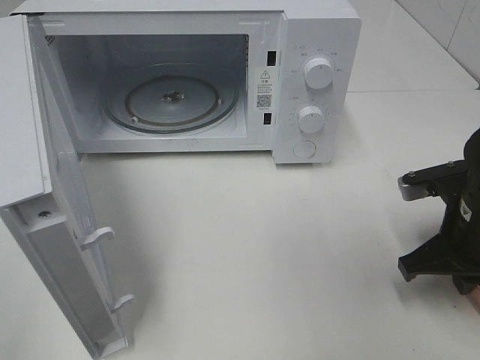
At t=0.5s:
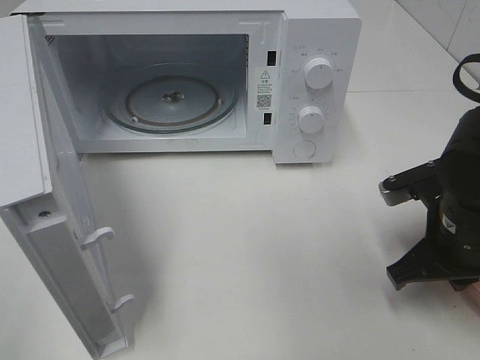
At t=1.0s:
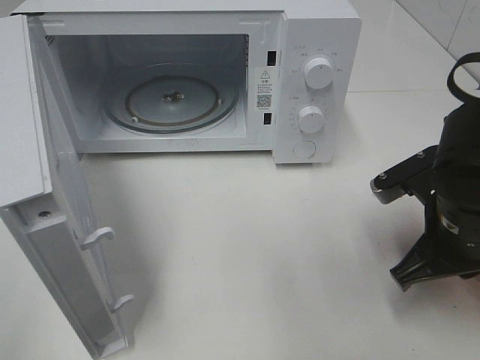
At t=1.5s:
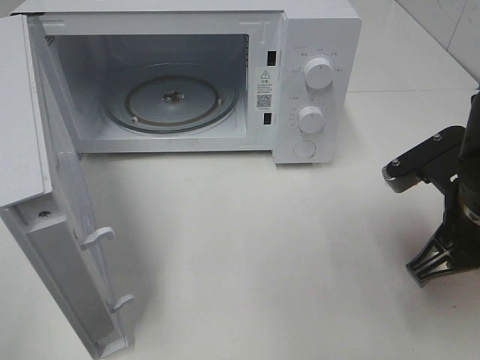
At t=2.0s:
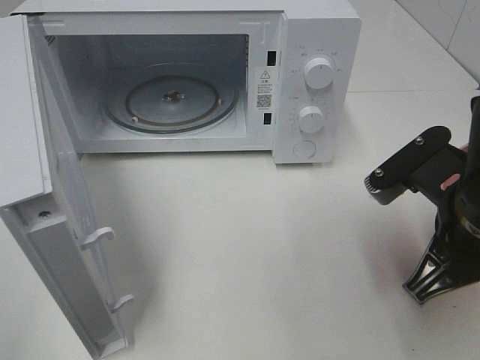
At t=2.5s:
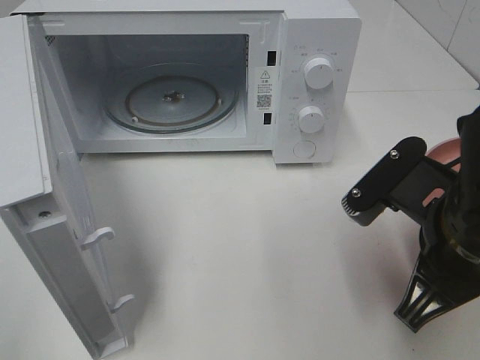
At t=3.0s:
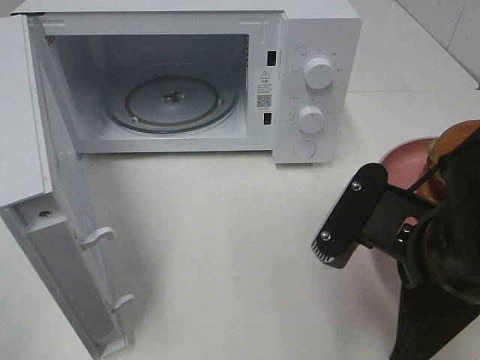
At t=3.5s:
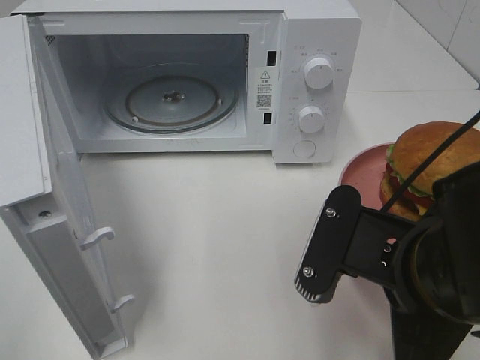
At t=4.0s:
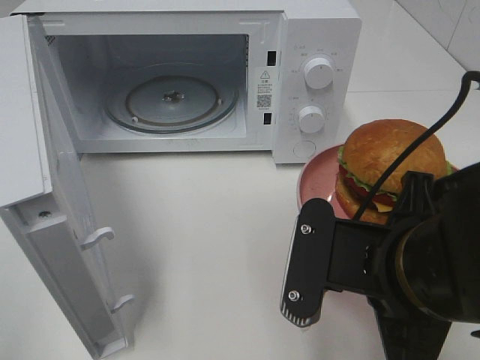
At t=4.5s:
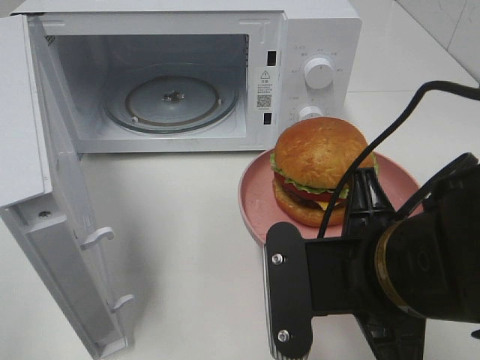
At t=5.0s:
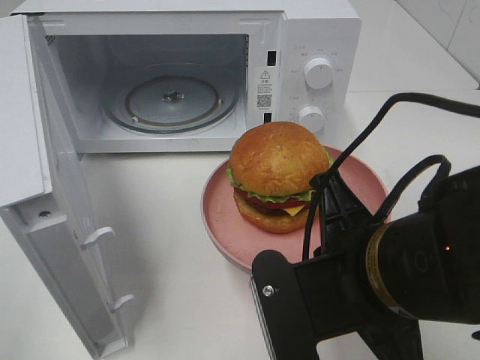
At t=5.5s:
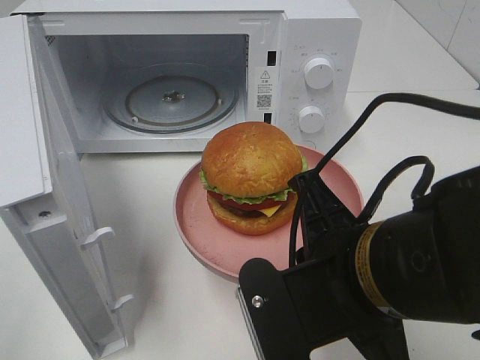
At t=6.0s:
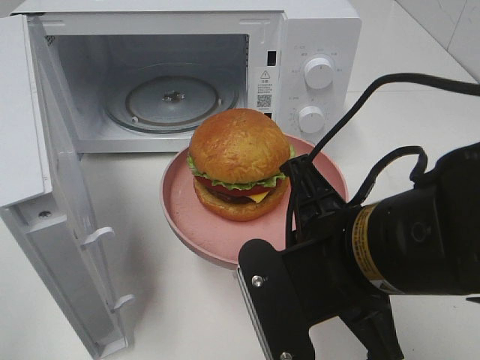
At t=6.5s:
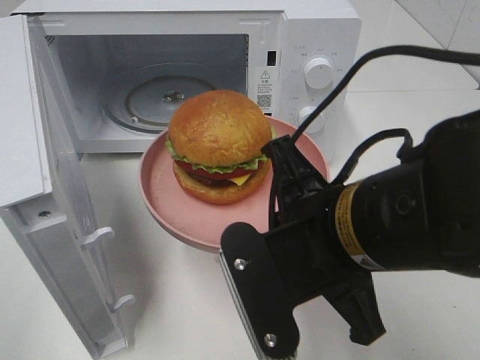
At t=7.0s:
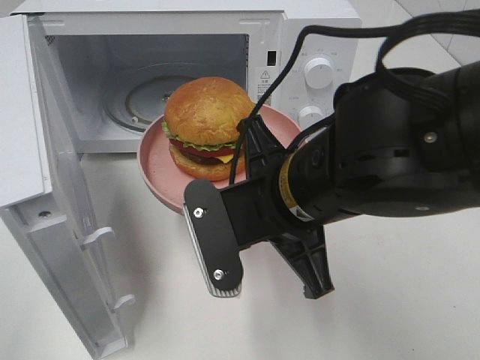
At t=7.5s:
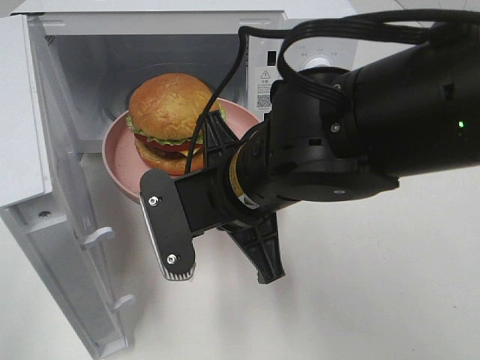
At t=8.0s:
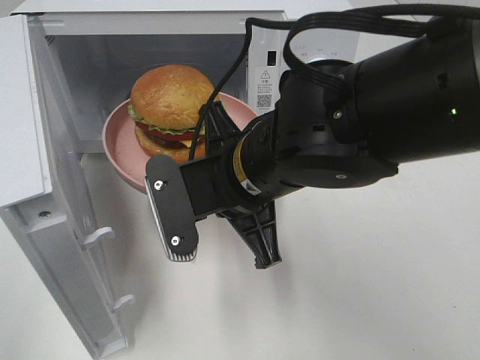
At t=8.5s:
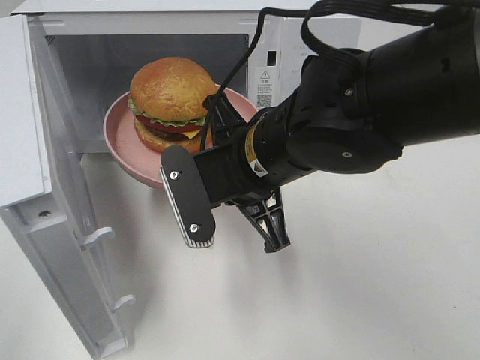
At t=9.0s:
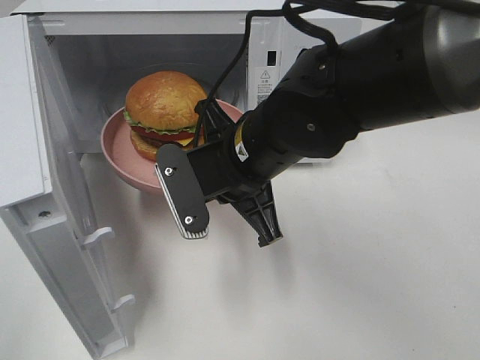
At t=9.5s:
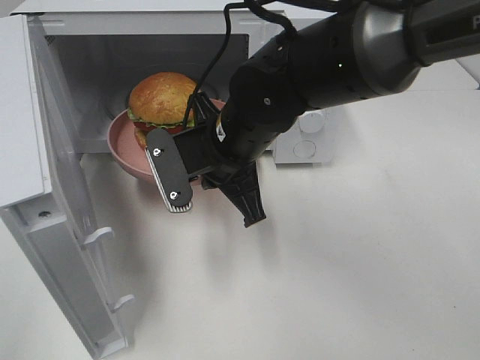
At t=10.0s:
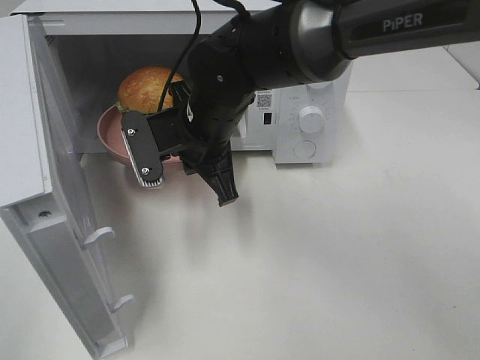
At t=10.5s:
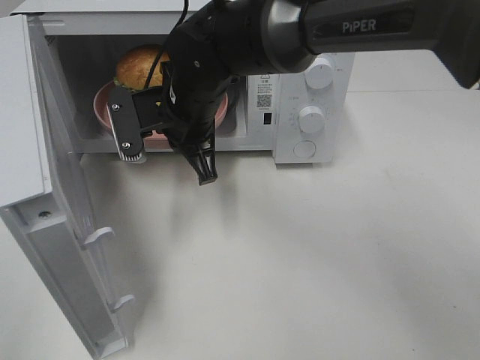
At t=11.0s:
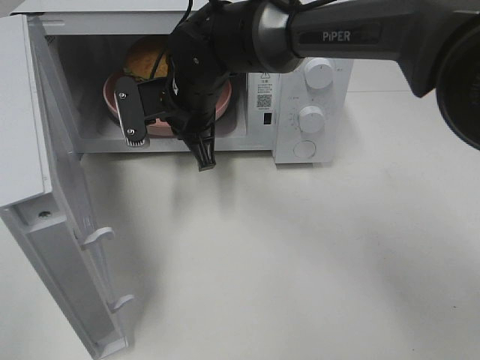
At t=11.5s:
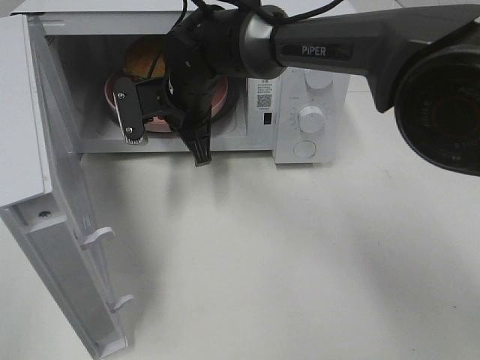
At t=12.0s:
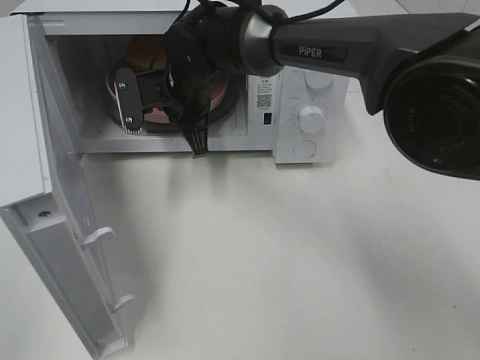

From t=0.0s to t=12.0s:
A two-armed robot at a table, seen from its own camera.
Task of the whole recording: Heat the burger.
From t=0.0s to t=2.0s: The right gripper shifts approximately 10 cm upward, to the left and backward.
From t=2.0s to t=4.0s: The right gripper travels to the left and backward by about 10 cm.
From t=6.0s to t=8.0s: The right gripper moves forward and to the left, approximately 10 cm.
From t=8.0s to t=10.0s: The right gripper shifts about 10 cm forward.
From t=10.0s to t=12.0s: The right gripper goes some 10 cm forward.

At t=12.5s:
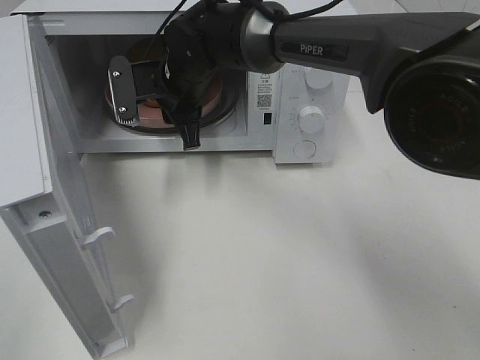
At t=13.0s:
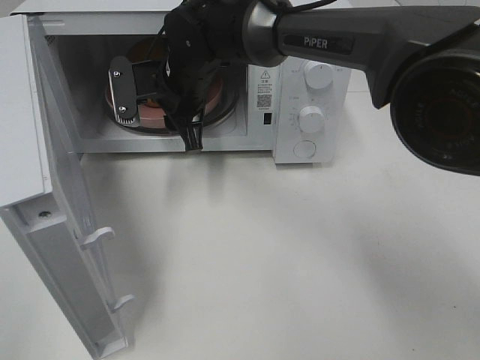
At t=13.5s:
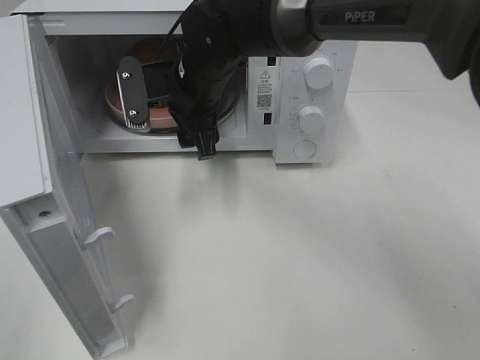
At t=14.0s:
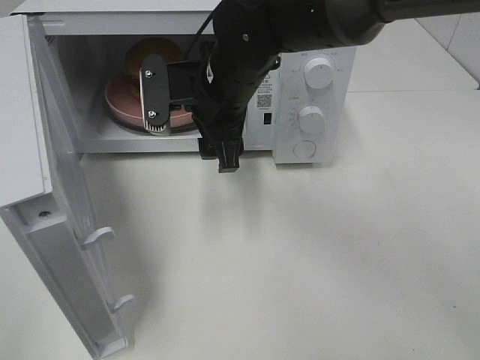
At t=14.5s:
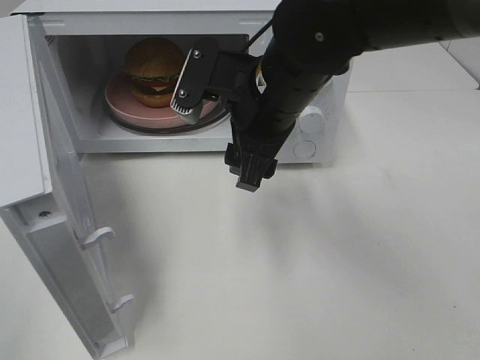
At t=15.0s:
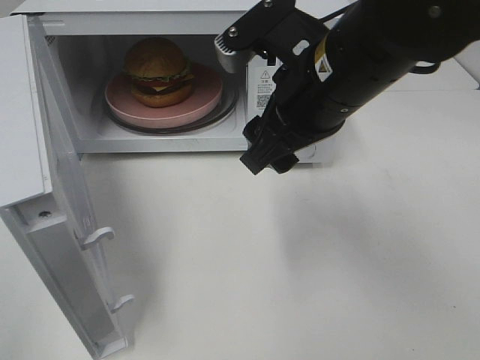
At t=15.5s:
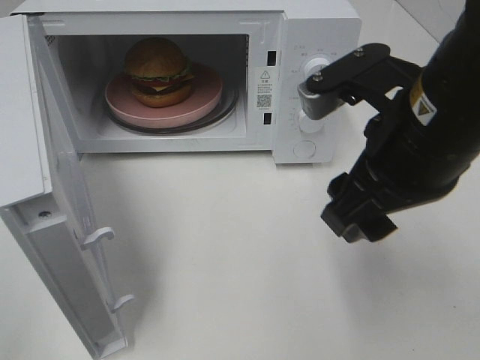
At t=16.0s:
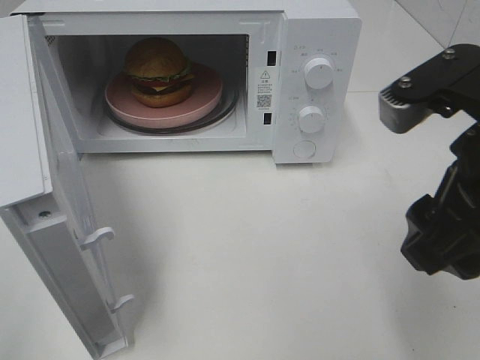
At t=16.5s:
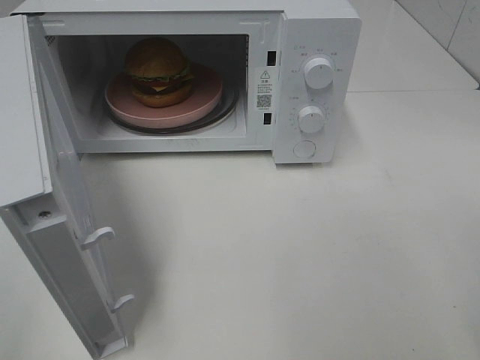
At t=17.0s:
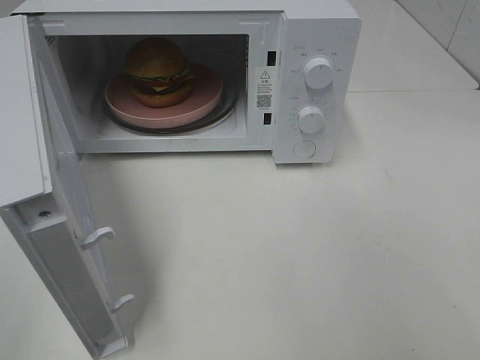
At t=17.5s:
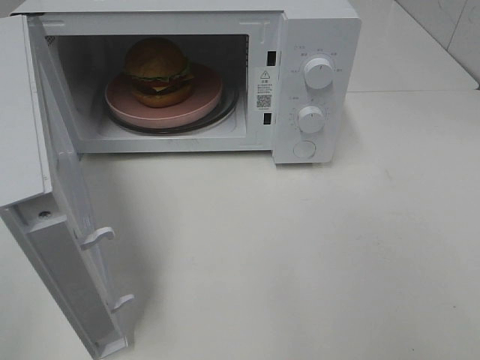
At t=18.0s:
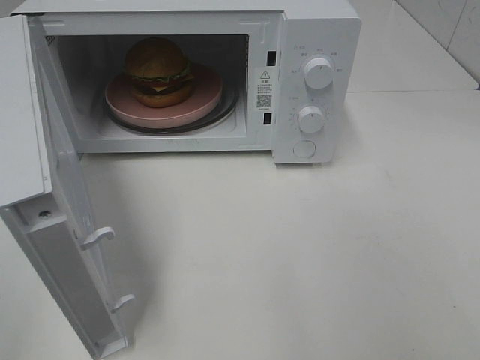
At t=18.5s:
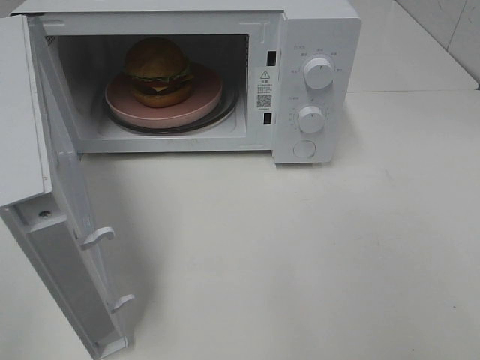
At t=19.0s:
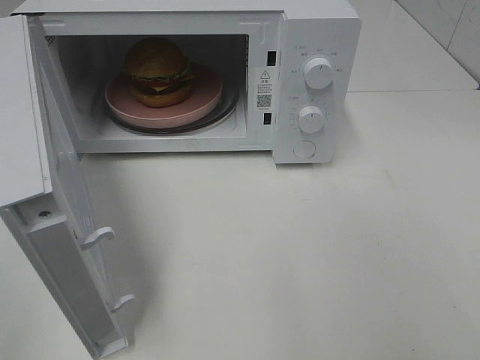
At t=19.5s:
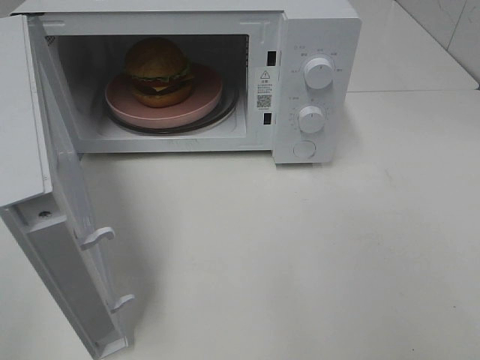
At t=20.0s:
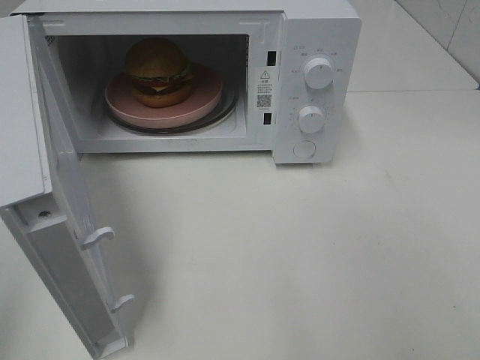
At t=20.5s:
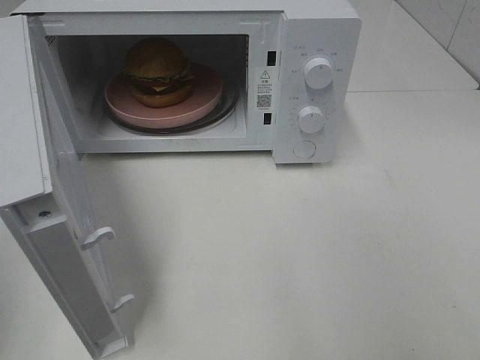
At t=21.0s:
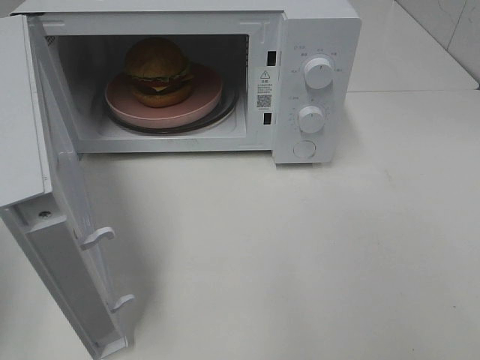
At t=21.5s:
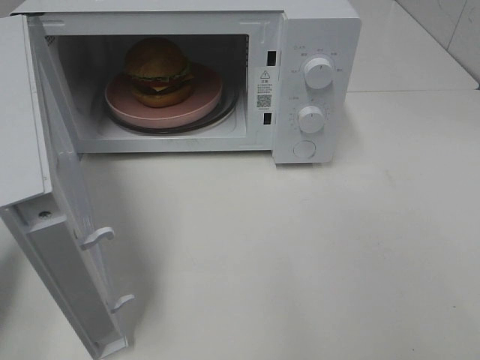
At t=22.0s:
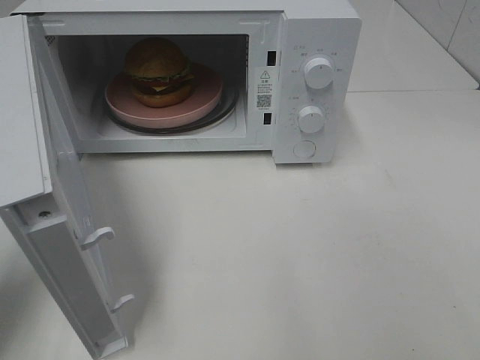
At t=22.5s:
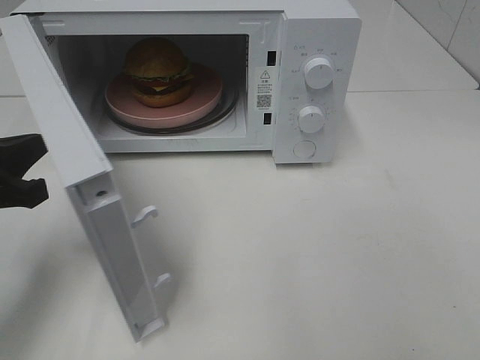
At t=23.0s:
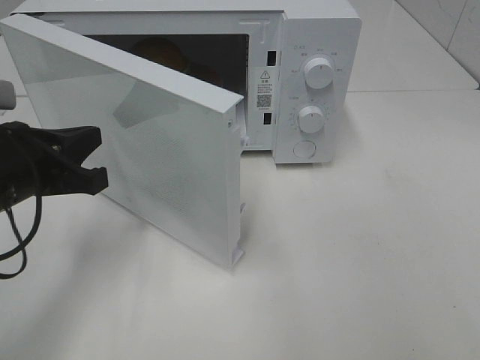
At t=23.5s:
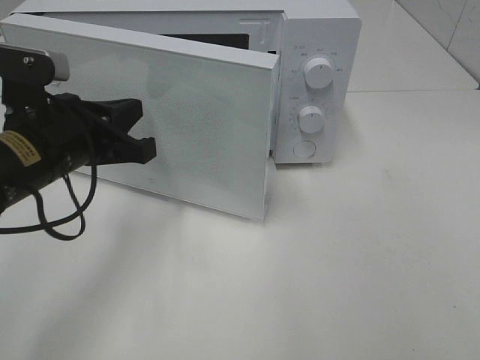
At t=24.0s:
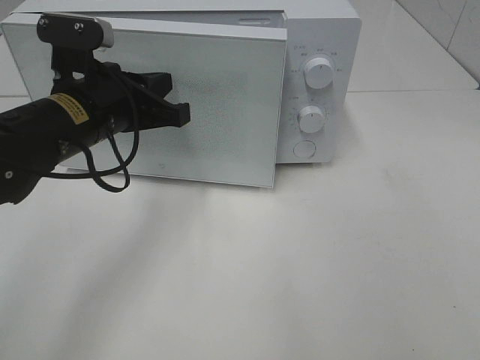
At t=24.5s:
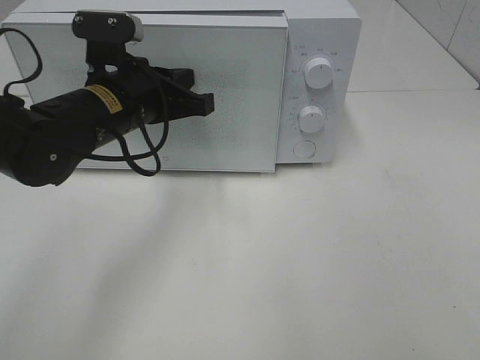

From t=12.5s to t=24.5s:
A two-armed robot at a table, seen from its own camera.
Task of the whole recording: Heat the burger.
From t=12.5s to t=14.5s: The right gripper heads backward, to the right and upward, covering roughly 15 cm, and opens.
From t=14.5s to t=16.5s: The right gripper moves to the right and backward, about 25 cm.
From t=20.5s to t=22.5s: The left gripper shifts about 20 cm forward, downward and to the right.
From t=22.5s to t=24.5s: The left gripper travels to the right and forward by approximately 20 cm.

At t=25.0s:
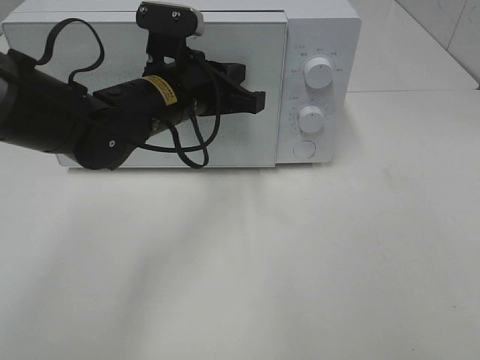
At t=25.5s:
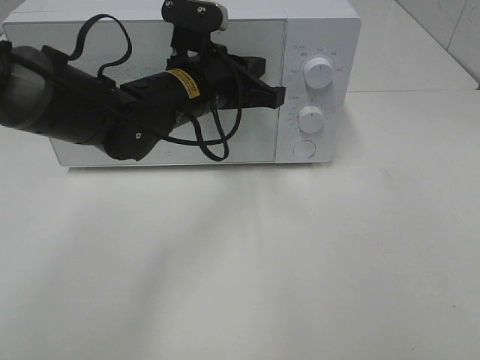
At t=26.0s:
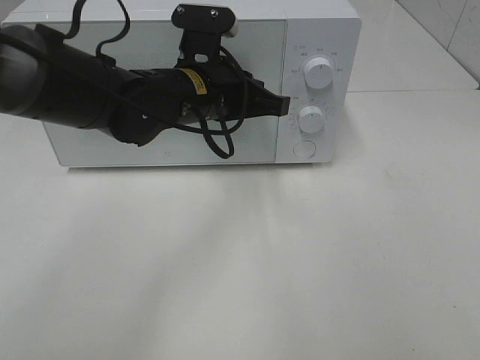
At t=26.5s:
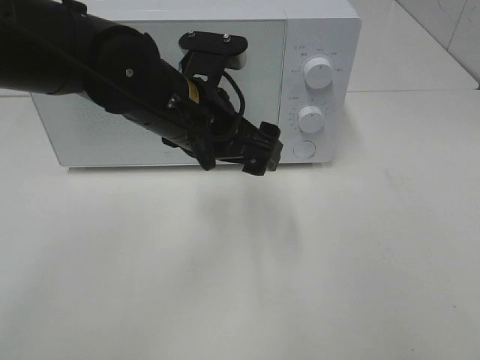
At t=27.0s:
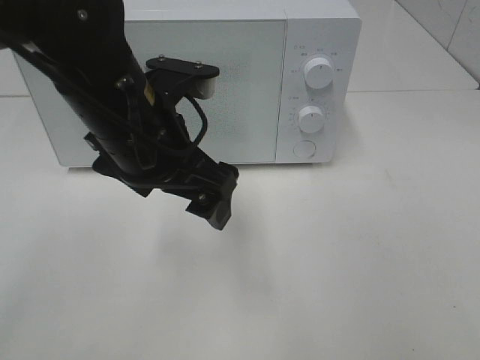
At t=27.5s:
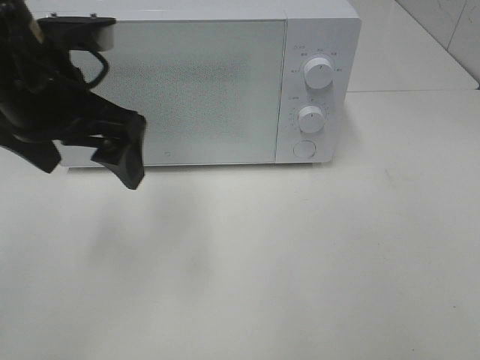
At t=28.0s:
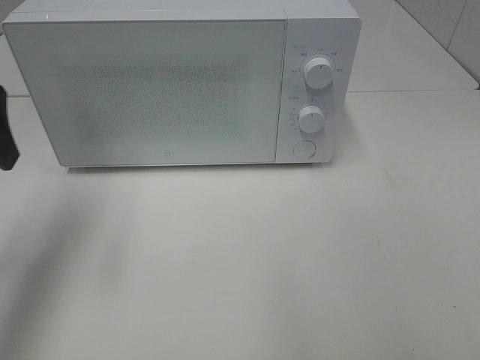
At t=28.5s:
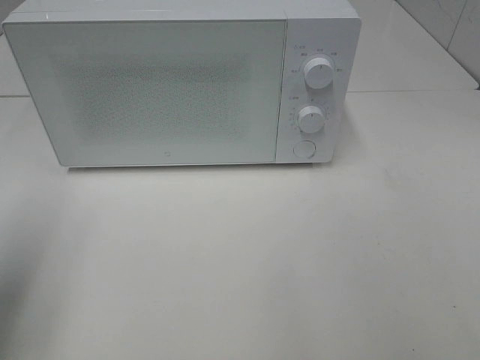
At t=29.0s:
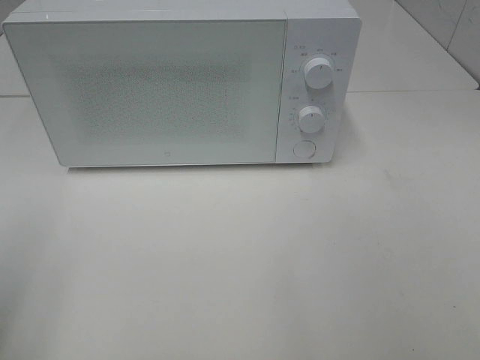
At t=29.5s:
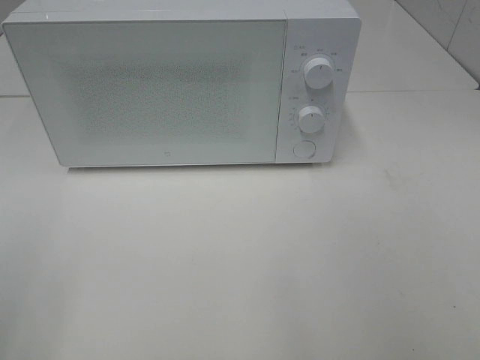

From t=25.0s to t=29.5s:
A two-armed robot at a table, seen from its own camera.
Task of the whole recording: Heat the burger.
From t=25.0s to t=27.0s: The left gripper goes about 10 cm backward, and opens up.
From t=27.0s to t=29.5s: The left gripper is displaced to the left and backward by approximately 30 cm.
